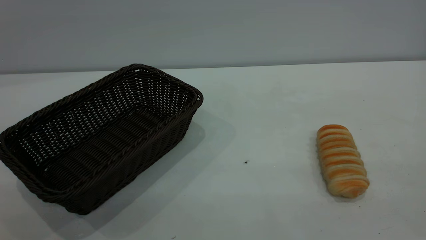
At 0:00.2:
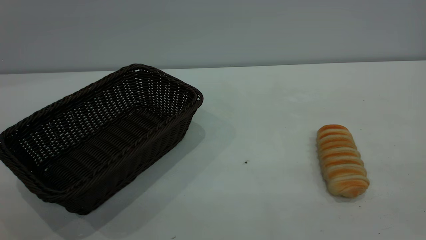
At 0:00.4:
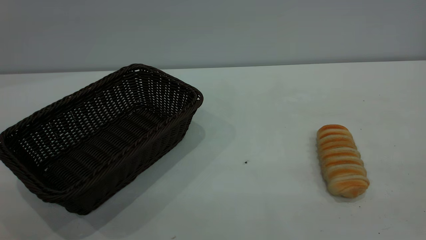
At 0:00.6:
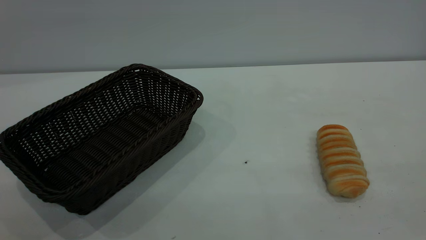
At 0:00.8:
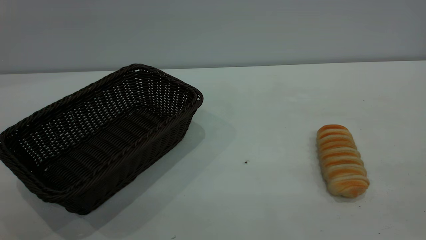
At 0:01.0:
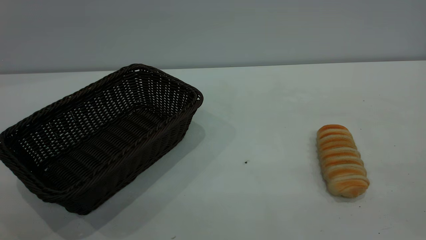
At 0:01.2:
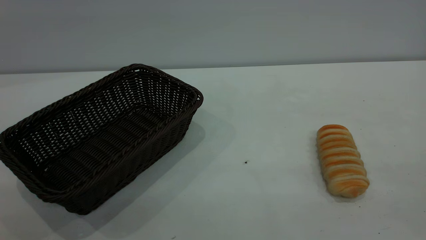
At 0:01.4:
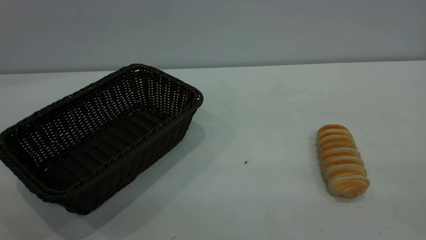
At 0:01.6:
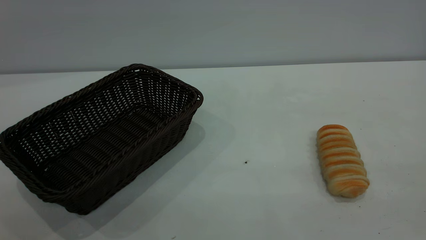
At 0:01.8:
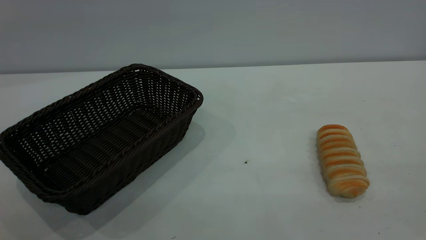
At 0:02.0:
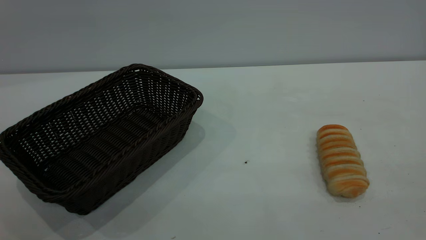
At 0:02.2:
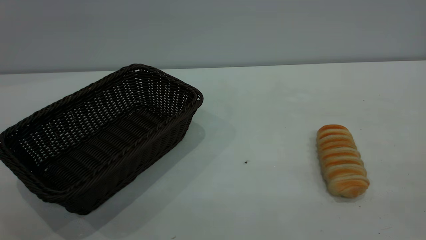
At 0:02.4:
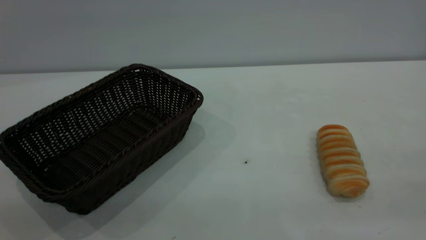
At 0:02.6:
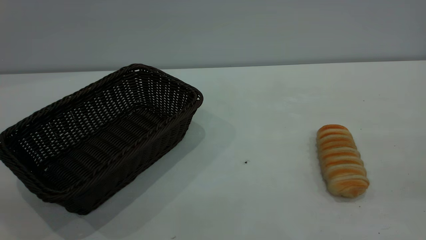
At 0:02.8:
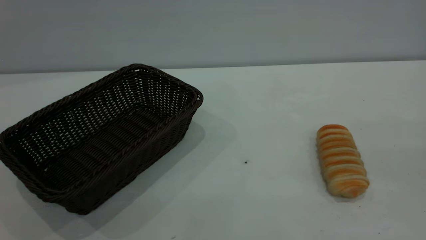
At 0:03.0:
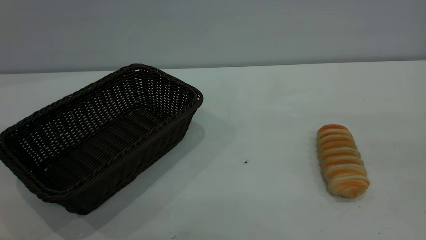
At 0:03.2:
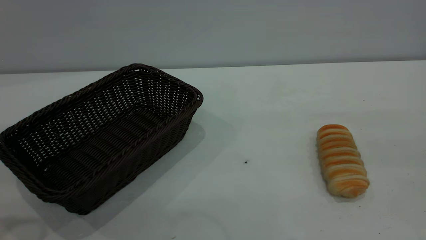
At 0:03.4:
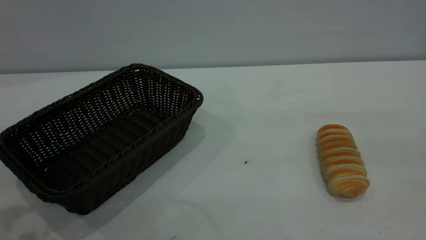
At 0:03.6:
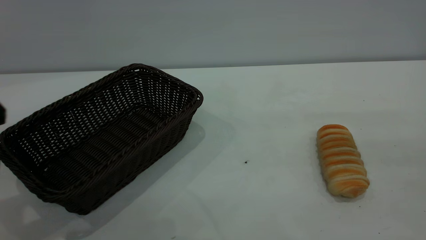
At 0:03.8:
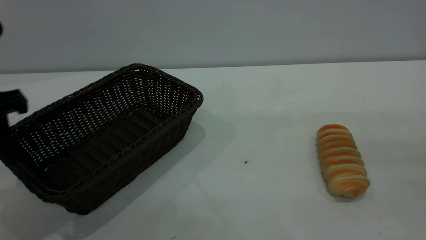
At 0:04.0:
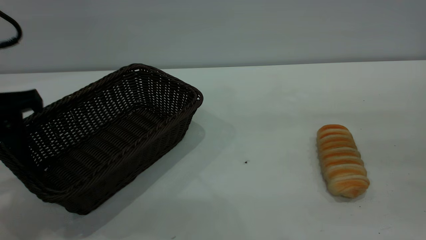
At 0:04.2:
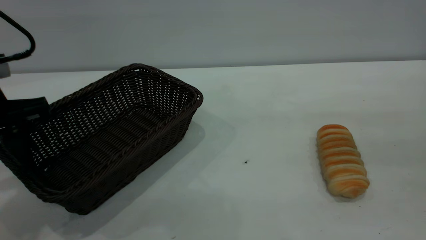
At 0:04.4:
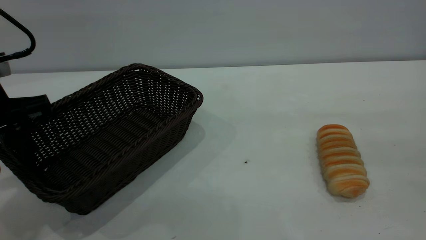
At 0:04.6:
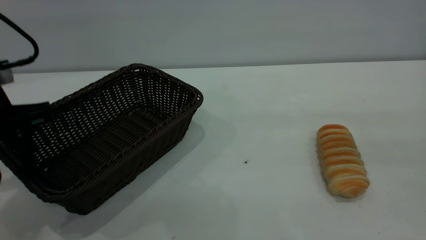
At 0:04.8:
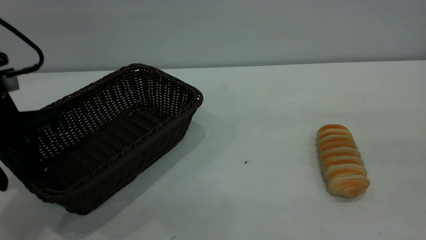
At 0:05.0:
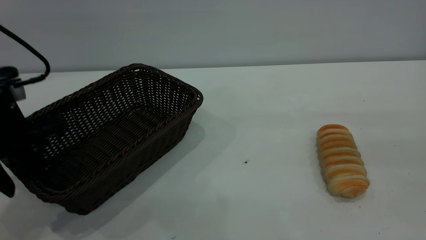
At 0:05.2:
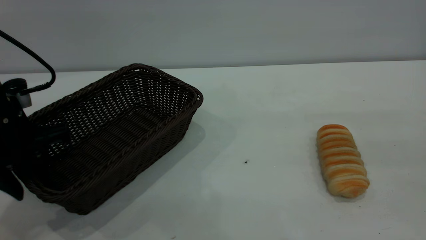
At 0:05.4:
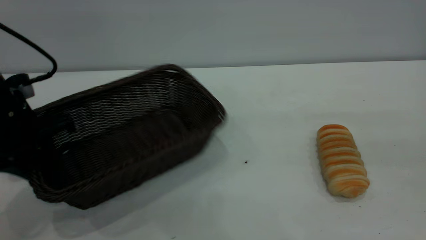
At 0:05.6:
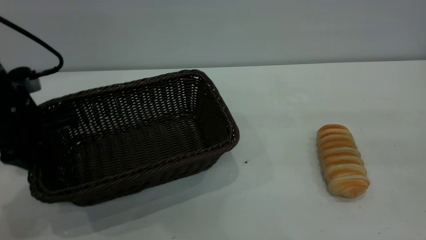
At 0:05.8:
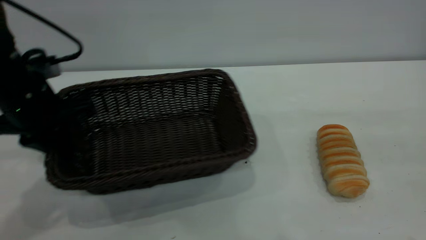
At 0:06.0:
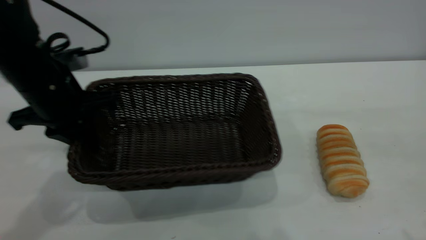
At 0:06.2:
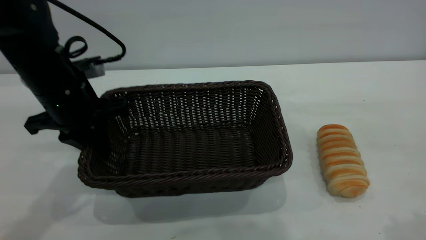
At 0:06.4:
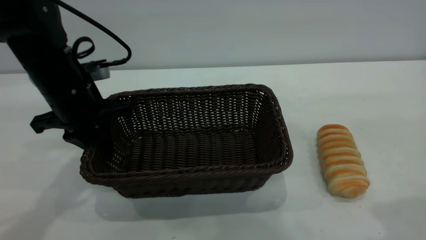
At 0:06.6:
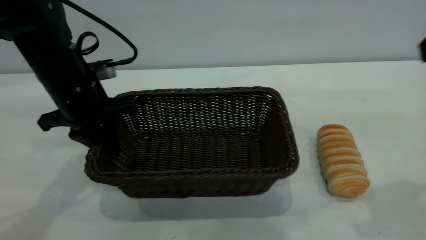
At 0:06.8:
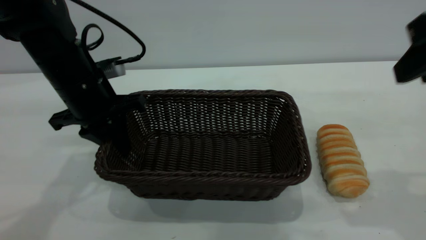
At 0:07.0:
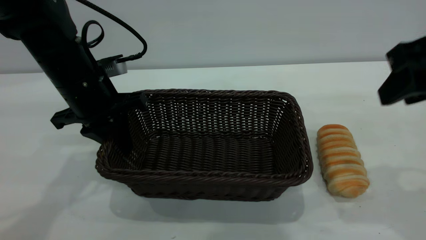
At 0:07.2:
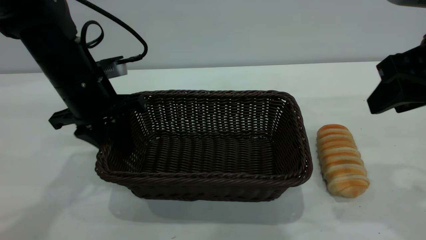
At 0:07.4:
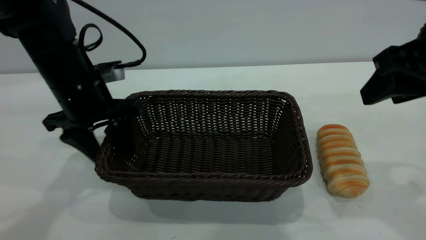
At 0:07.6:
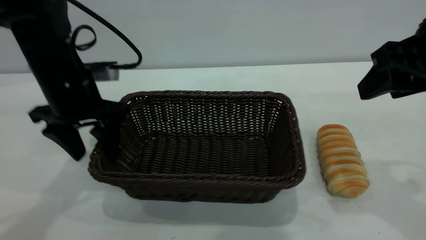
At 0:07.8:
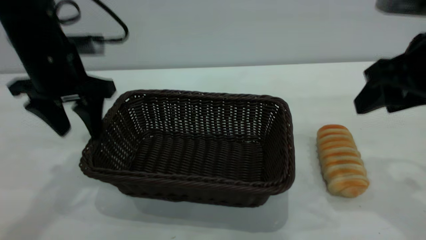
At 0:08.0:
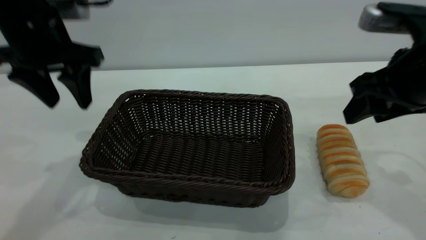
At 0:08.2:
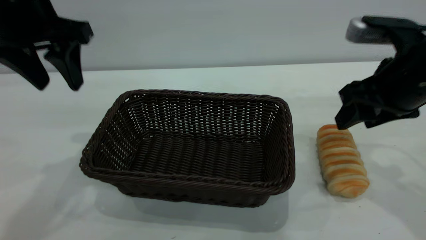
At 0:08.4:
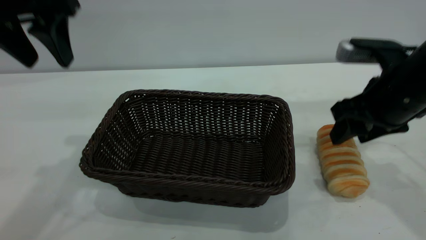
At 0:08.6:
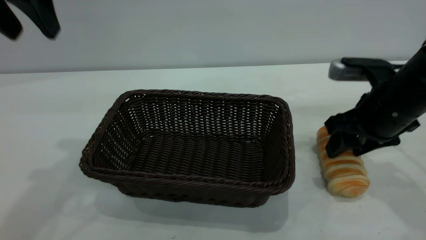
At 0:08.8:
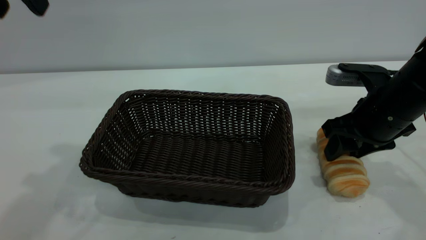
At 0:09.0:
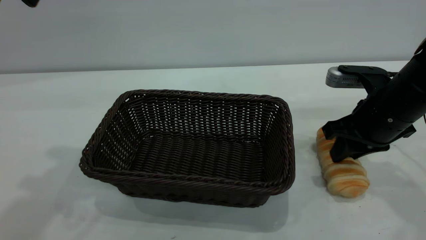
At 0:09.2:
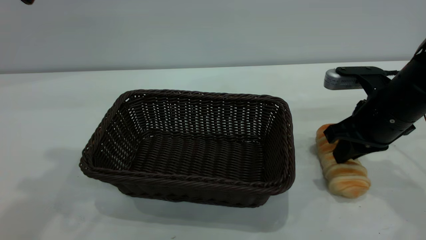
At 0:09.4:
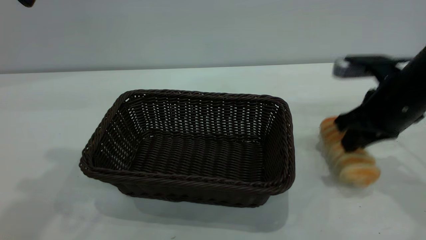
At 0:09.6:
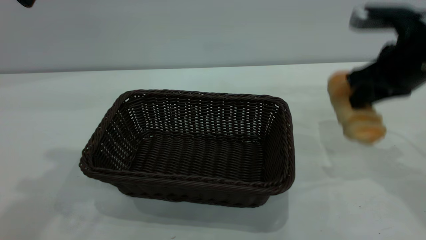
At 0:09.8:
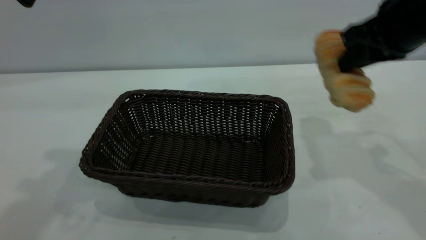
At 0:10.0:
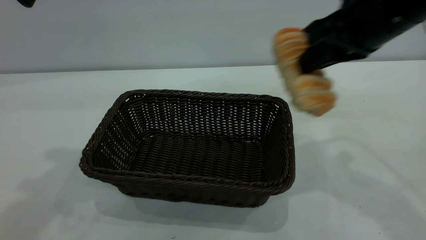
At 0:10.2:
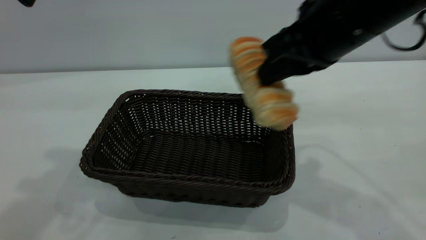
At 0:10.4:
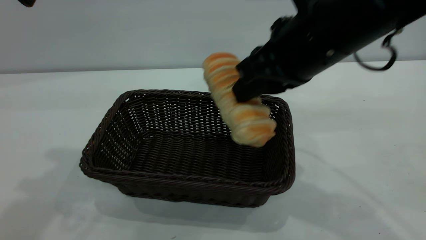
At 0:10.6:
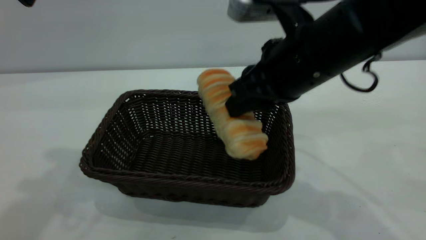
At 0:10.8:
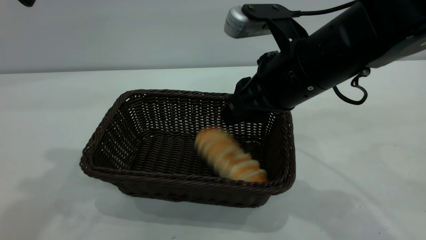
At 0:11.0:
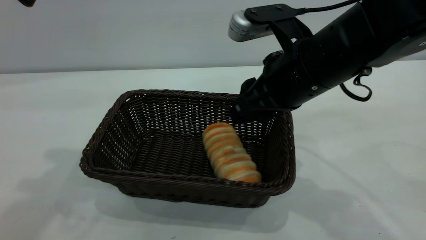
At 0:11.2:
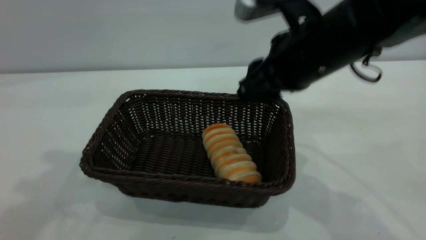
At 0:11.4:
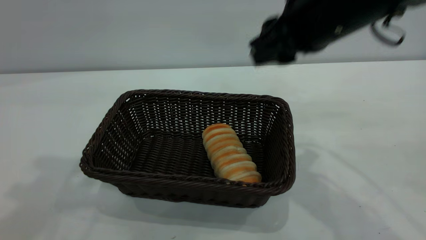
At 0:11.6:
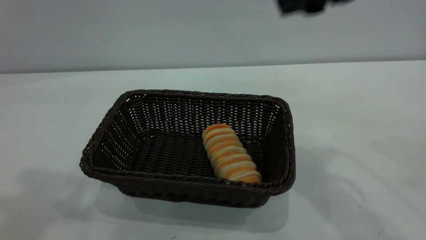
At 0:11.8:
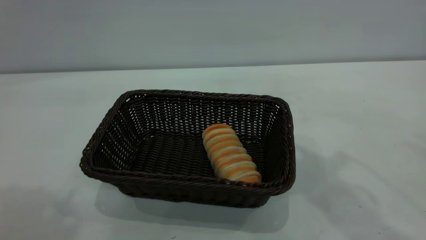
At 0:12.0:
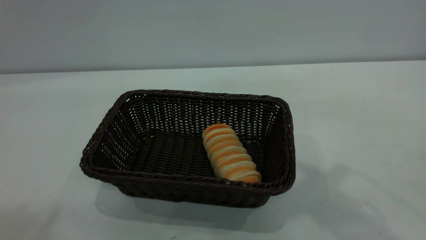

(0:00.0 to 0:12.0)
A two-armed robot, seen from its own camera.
Task of the whole recording: One hand grasps the black basket and places it in the middle of the table, while the other hand picks up the long bread and puts it into the black basket.
Step, 0:00.0 - 0:08.0: Move the basket to the center of view.
Step, 0:09.8 - 0:11.4: place the bread into the basket.
0:00.0 - 0:01.6: The two grippers keep their place.
0:03.0 - 0:04.4: The left gripper goes approximately 15 cm forward and downward.
0:04.4 - 0:06.0: The left gripper shifts approximately 10 cm forward and to the right, and closes up.
0:06.0 - 0:07.6: The left gripper opens up. Meanwhile the right gripper heads forward and downward, covering roughly 15 cm, and opens its fingers.
0:07.6 - 0:09.0: The left gripper shifts roughly 20 cm upward, while the right gripper shifts roughly 15 cm downward and forward, and closes up.
0:09.0 - 0:10.4: The right gripper shifts some 15 cm to the left and upward.
0:10.4 - 0:12.0: The right gripper travels upward by approximately 15 cm, and opens. Meanwhile the left gripper moves backward and upward, about 15 cm.

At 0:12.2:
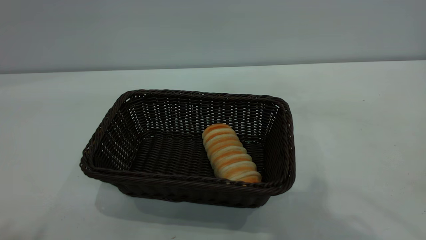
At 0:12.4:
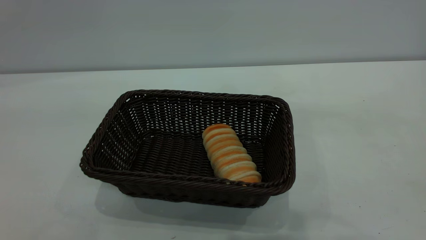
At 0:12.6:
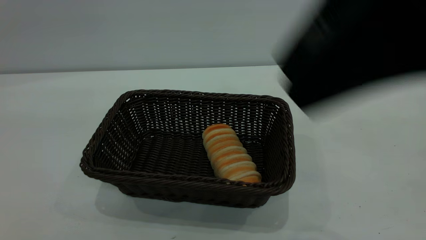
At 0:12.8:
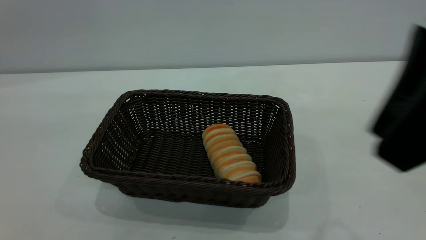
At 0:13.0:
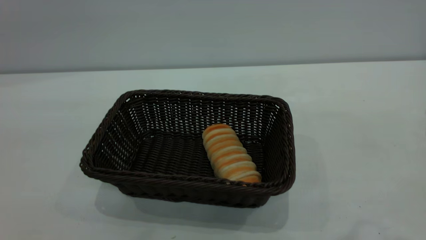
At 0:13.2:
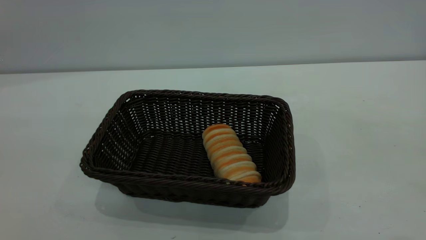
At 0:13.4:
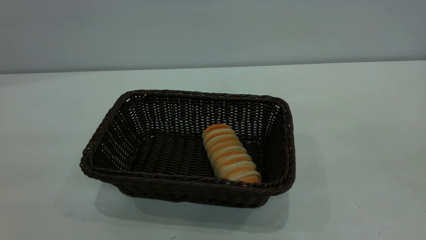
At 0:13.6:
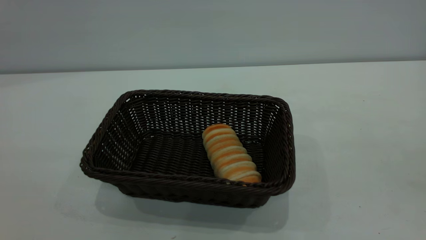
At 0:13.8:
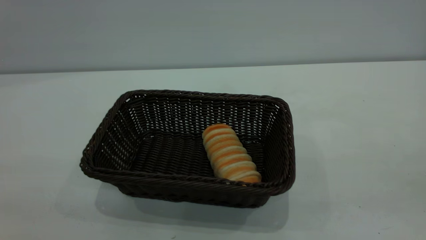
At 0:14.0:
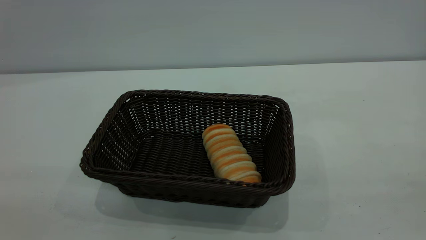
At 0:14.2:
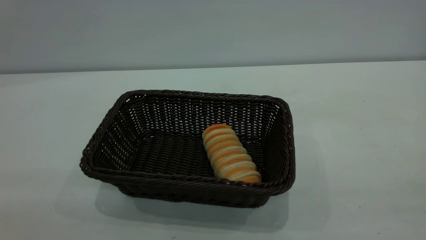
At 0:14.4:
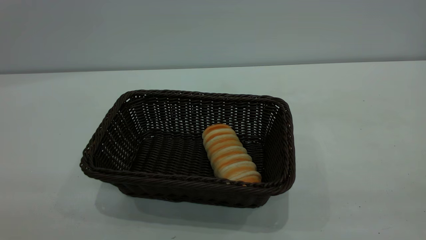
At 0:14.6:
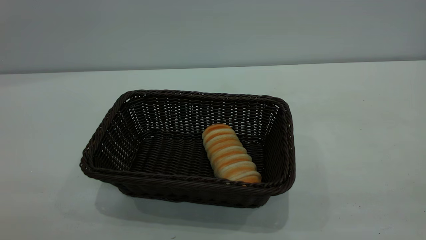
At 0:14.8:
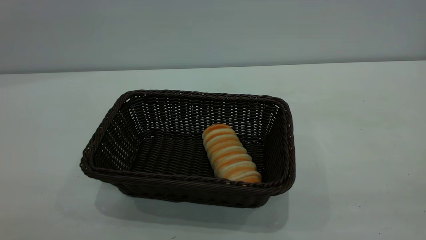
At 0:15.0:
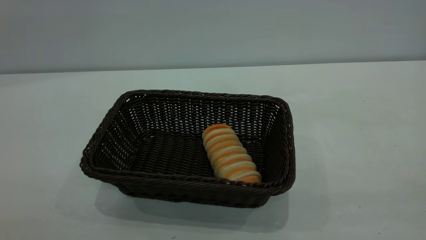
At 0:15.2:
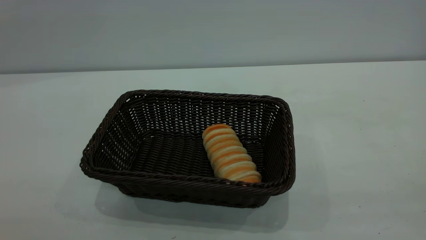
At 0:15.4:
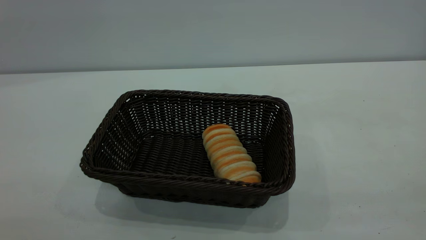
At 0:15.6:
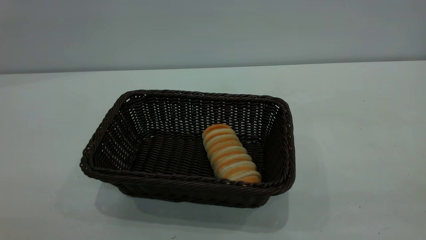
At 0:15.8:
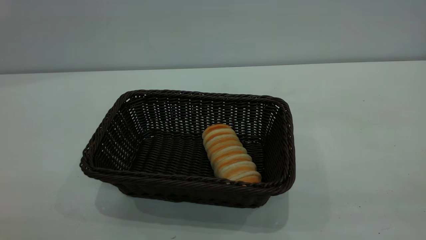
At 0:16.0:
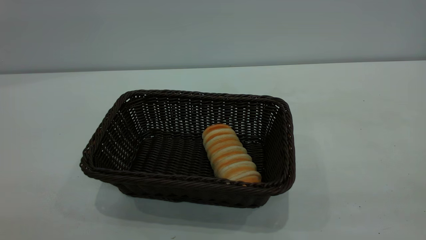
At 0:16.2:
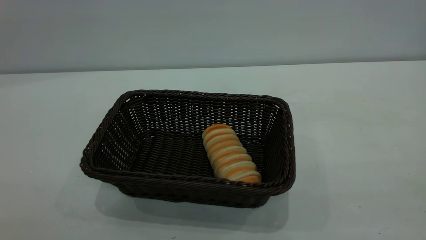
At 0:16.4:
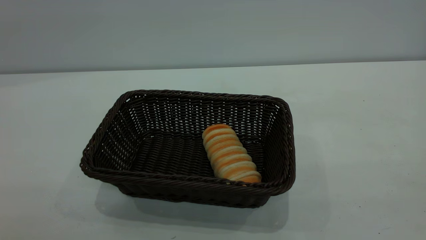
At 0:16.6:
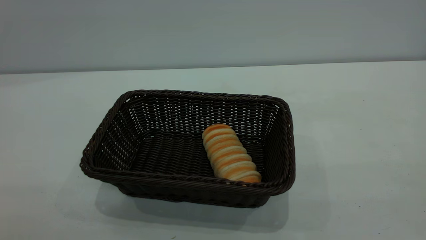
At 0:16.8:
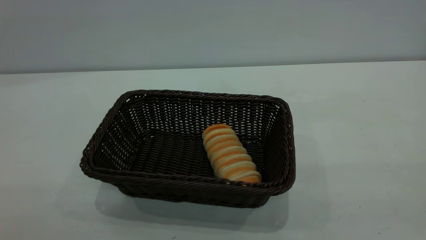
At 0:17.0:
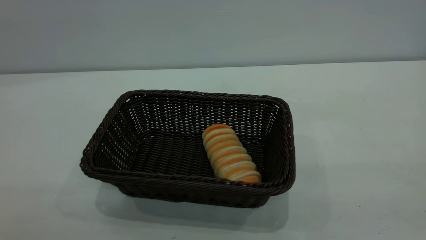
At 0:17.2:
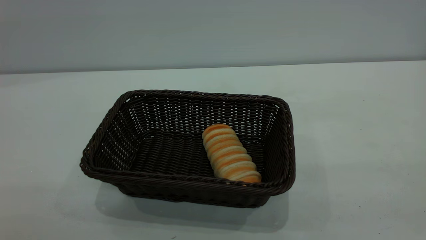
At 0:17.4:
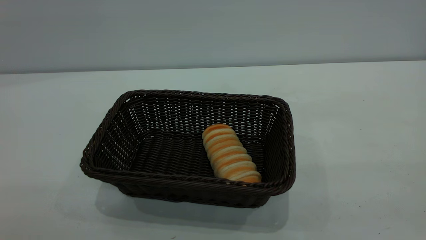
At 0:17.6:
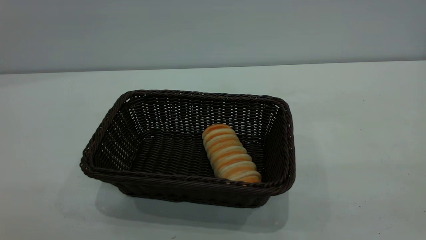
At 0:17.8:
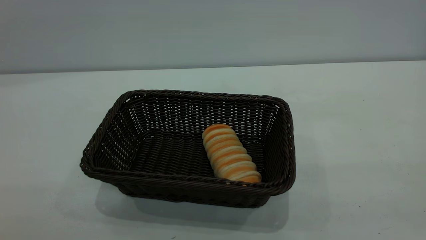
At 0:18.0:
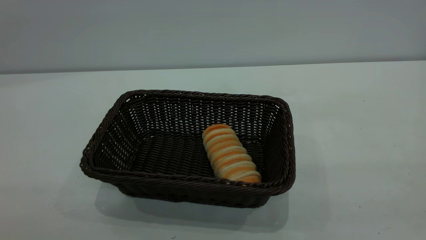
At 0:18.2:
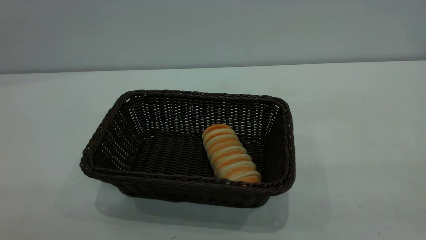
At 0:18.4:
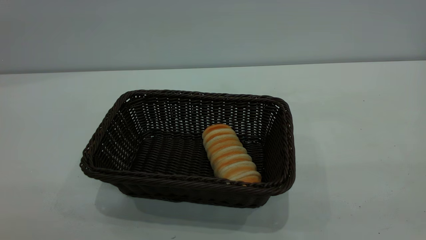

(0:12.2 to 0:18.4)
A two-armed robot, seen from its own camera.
Task of the whole recording: One hand grasps the black basket and places it in the middle of the table, while the other hand picks up the long bread and puts it into the black basket.
0:16.8 - 0:18.4: Both grippers stay about where they are.
